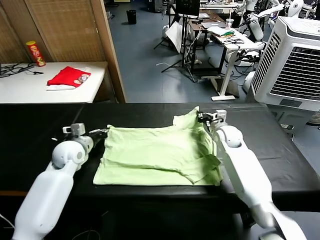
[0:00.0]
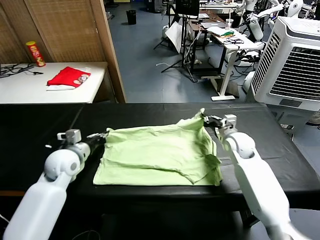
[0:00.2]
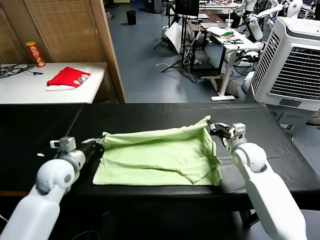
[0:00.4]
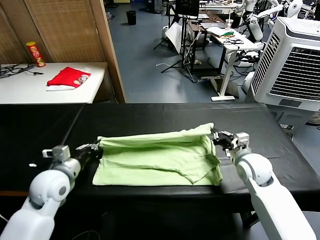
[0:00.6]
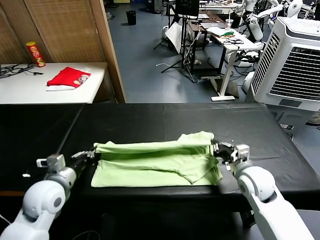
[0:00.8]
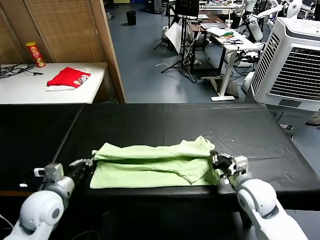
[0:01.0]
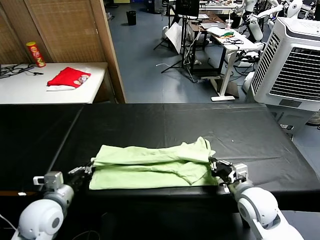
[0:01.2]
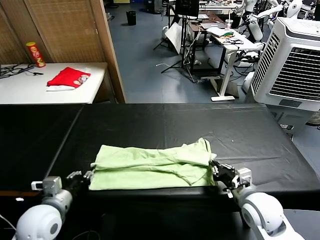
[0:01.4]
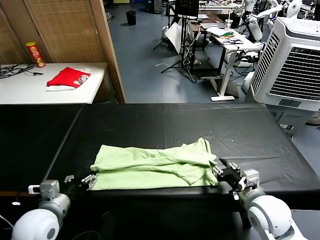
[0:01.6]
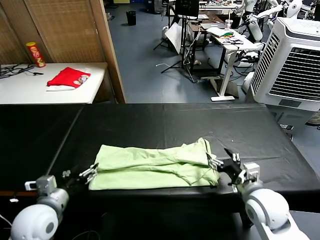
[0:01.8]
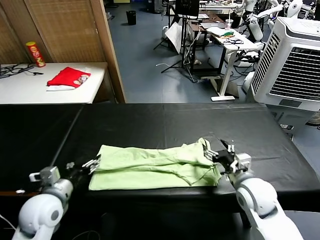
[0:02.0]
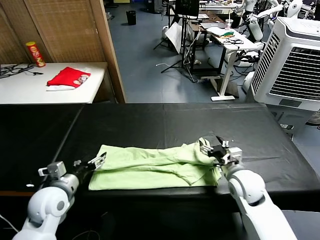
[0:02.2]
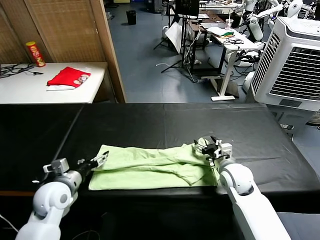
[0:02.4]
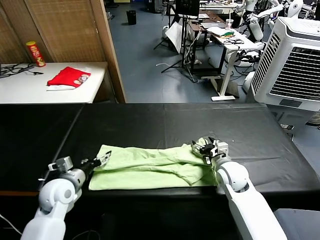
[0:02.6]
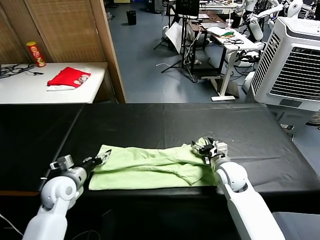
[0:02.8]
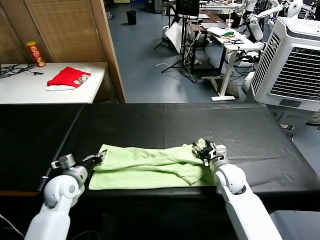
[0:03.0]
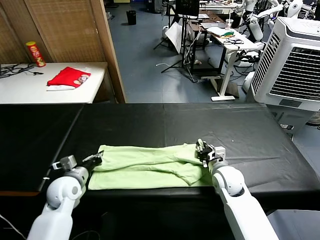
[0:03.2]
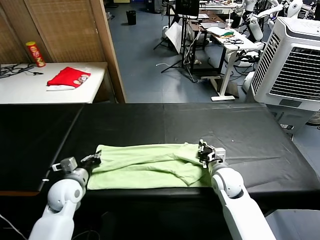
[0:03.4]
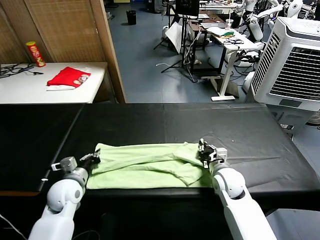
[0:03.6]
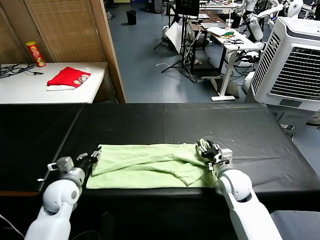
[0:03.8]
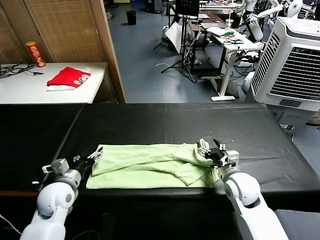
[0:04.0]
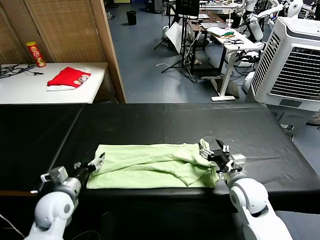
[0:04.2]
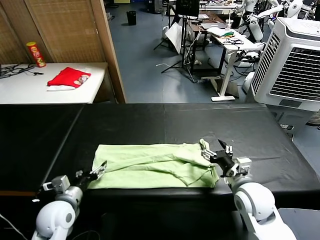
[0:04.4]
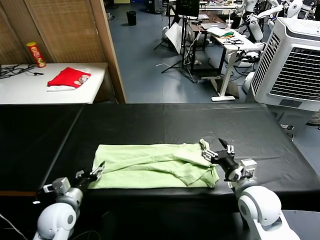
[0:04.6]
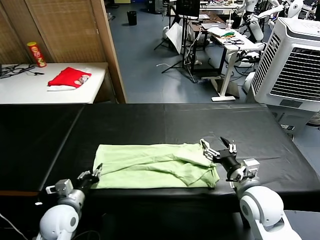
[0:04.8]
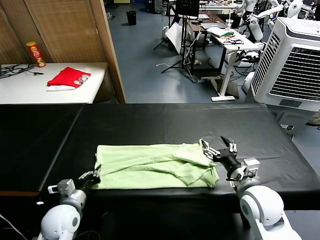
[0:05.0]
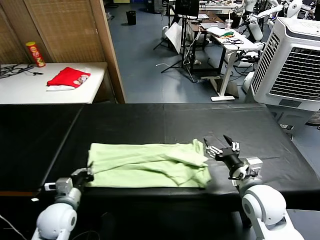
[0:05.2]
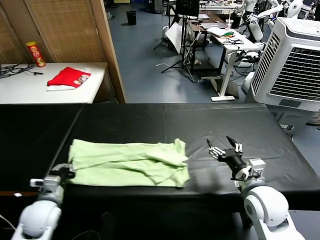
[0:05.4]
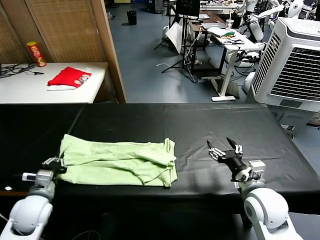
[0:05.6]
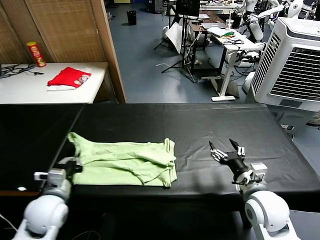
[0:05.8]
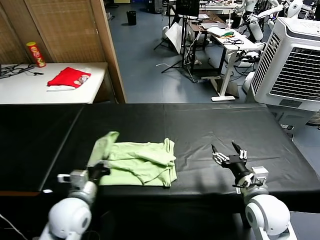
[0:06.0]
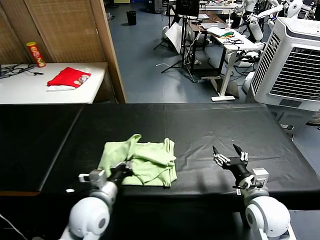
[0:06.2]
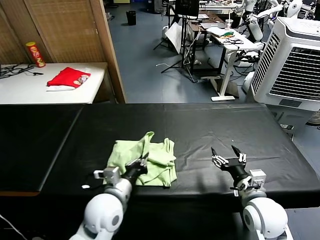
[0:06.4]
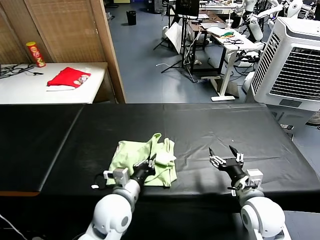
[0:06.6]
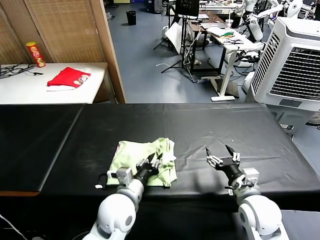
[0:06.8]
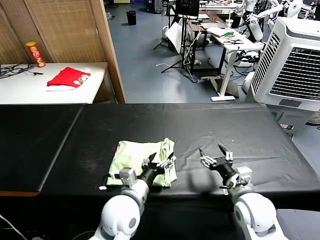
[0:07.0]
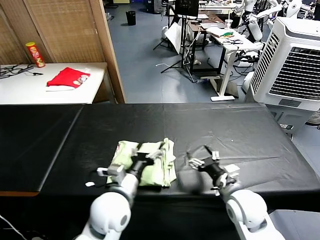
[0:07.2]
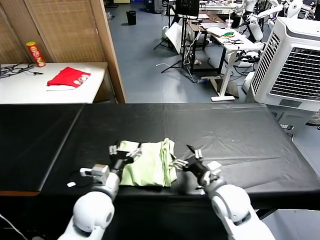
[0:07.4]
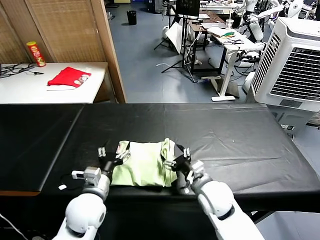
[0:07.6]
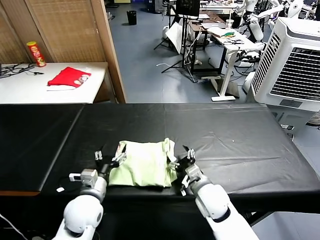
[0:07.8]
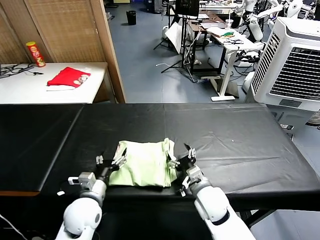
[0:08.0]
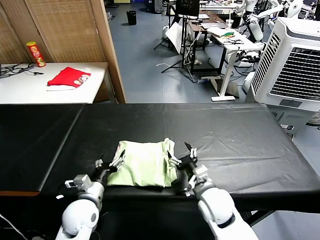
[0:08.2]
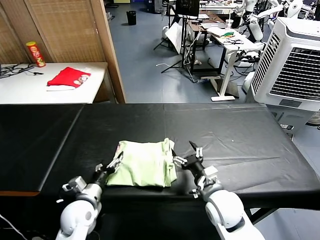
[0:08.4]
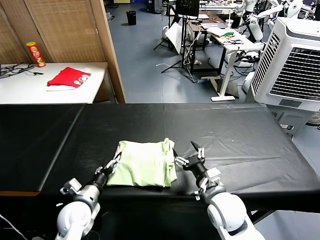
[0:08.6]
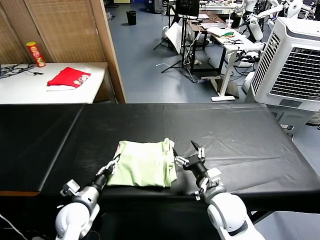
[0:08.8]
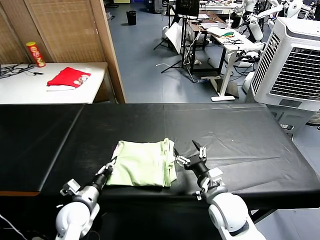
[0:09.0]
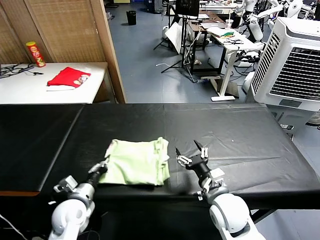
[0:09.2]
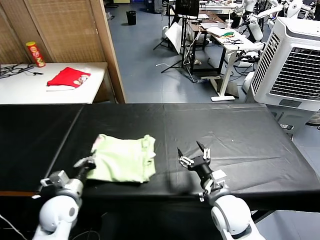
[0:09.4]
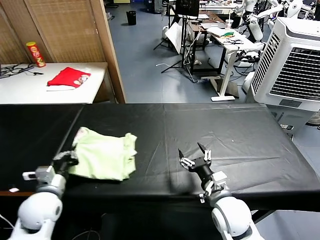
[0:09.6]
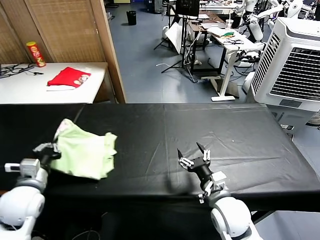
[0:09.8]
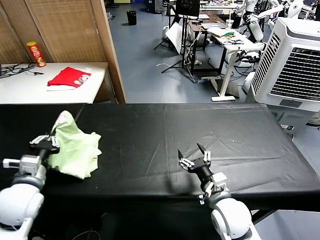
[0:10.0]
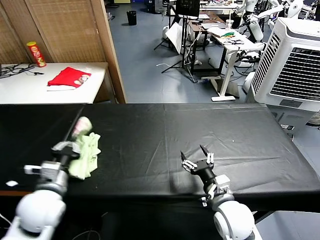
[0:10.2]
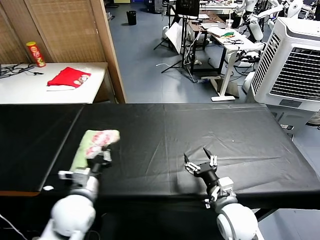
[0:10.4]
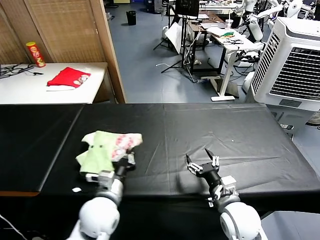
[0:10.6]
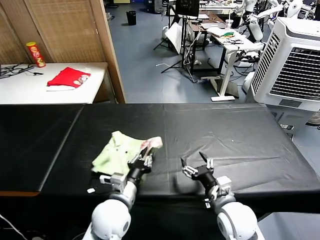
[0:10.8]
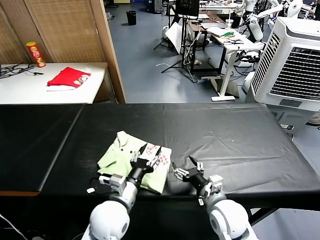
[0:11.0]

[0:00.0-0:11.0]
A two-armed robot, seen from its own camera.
Task of the whole recording: fold and organize the clothes.
Step, 0:00.0 to 0:01.6: use both grippers to drag the upper edge of the fabric backward and fold it over the lower edge.
Step, 0:01.8 to 0:04.8: use the left gripper to clamp the left edge of the fabric.
Step, 0:05.2 to 0:06.8: use the left gripper to drag the left edge of the fabric to the left and folds it over the right edge.
Step, 0:07.2 to 0:10.8: Flip the folded clothes over with left gripper.
0:00.0 to 0:01.6: Both grippers travel together backward, about 20 cm. The left gripper opens its fingers. The right gripper opens up.
0:01.6 to 0:03.2: The right gripper travels forward, downward and to the left by approximately 15 cm, and closes its fingers, while the left gripper shifts approximately 15 cm forward and downward, and closes its fingers.
0:03.2 to 0:04.8: The left gripper is displaced backward by about 10 cm, and opens and closes again, while the right gripper travels backward and upward by roughly 15 cm, and opens its fingers.
0:04.8 to 0:06.2: The left gripper travels to the right and upward by about 15 cm.
0:06.2 to 0:07.8: The left gripper moves some 10 cm to the right and comes back, and opens its fingers. The right gripper goes about 15 cm to the left, forward and downward.
0:07.8 to 0:09.4: The right gripper shifts by about 5 cm. Meanwhile the left gripper shifts some 10 cm to the left, and closes.
0:09.4 to 0:11.0: The left gripper moves to the right, about 15 cm, and opens up.

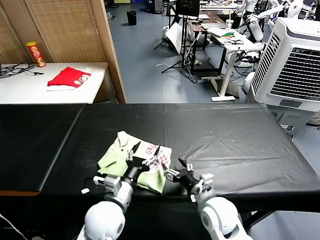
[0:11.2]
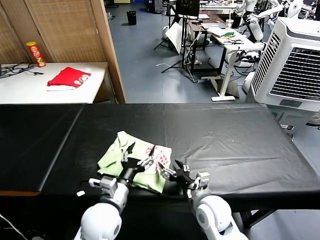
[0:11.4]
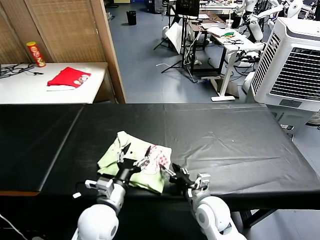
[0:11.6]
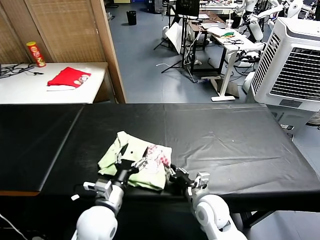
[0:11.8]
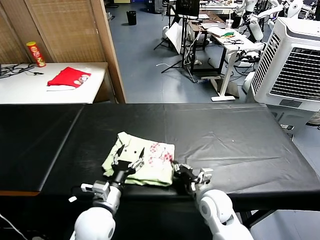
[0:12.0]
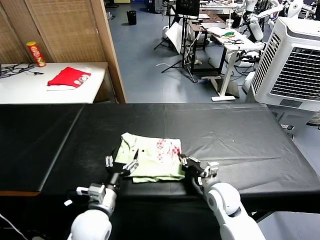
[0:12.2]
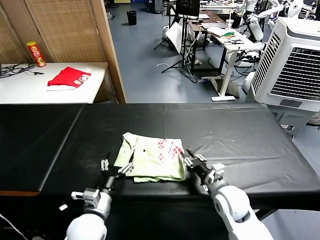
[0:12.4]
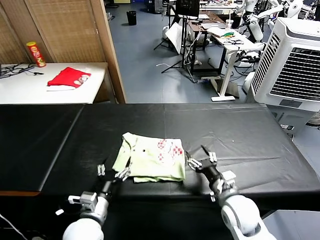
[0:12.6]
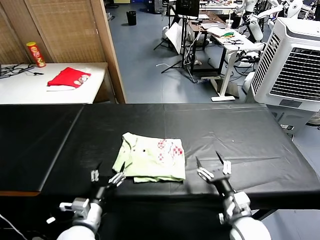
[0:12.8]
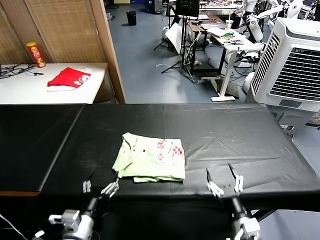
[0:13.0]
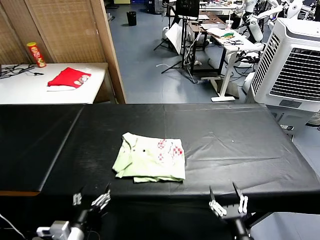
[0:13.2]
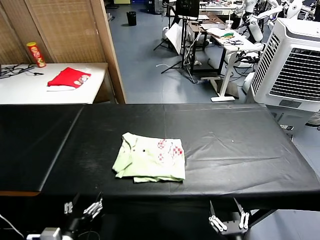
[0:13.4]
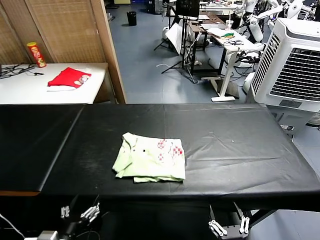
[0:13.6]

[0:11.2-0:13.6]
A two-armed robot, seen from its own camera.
Task of the whole recording: fold and organize the clothes.
Step, 0:11.2 to 0:12.4: Drag the clothes to the center of the table.
0:11.2 to 0:12.4: The right gripper ends up approximately 5 cm from where it was, and closes; the left gripper travels to the left by roughly 5 cm.
0:12.4 to 0:13.6: The left gripper goes about 15 cm backward and to the left; the right gripper shifts approximately 25 cm backward, and opens its fingers.

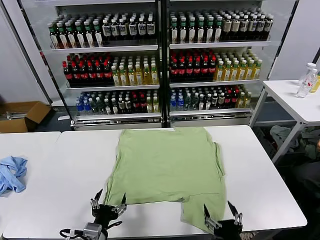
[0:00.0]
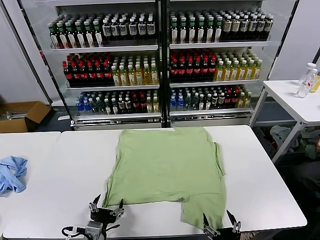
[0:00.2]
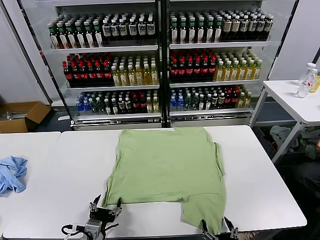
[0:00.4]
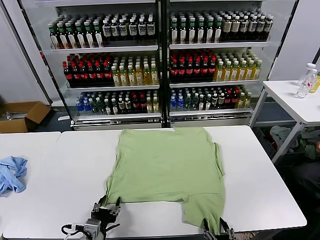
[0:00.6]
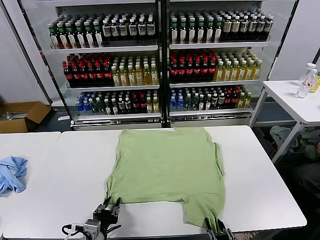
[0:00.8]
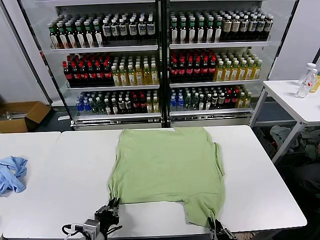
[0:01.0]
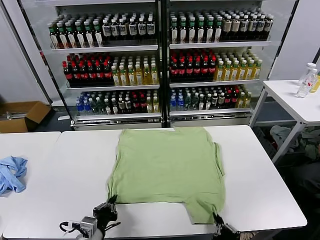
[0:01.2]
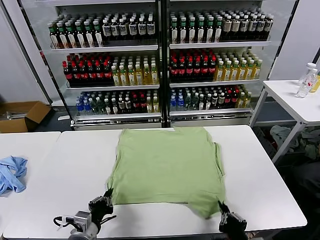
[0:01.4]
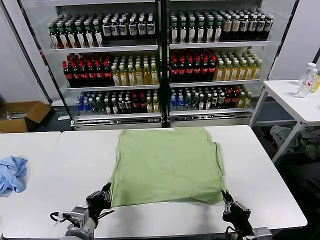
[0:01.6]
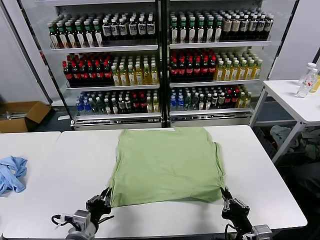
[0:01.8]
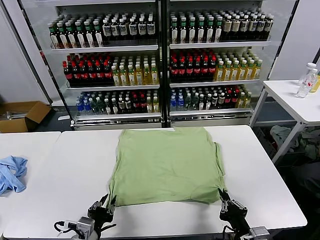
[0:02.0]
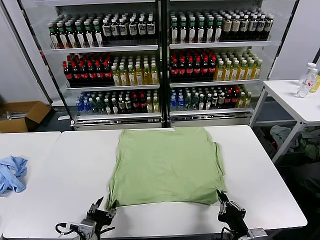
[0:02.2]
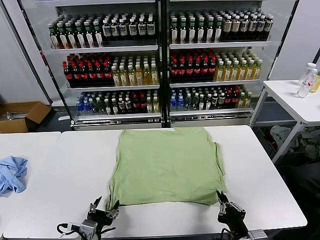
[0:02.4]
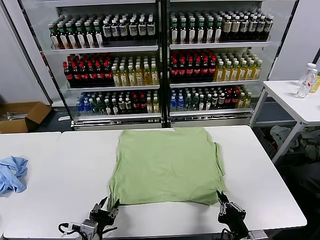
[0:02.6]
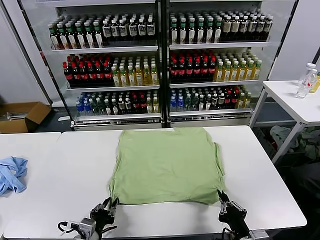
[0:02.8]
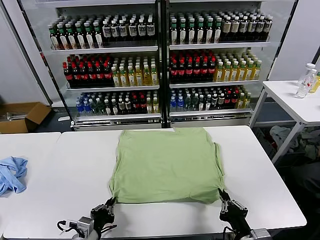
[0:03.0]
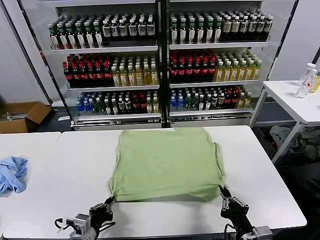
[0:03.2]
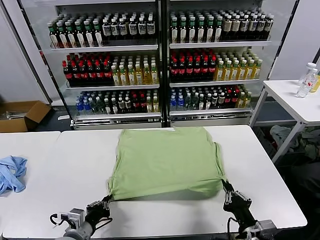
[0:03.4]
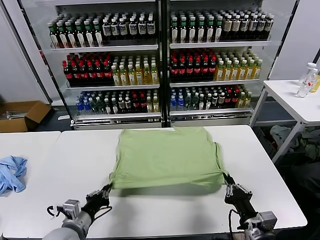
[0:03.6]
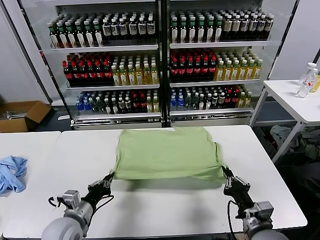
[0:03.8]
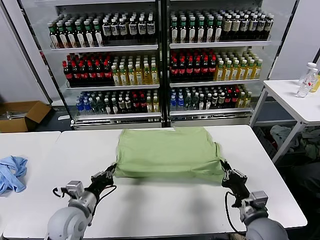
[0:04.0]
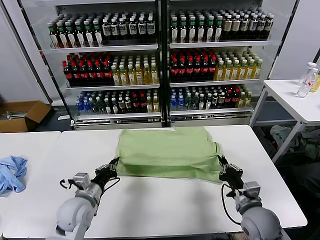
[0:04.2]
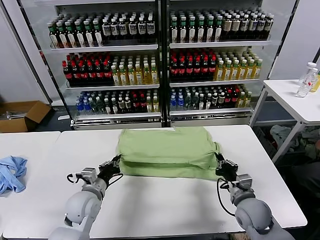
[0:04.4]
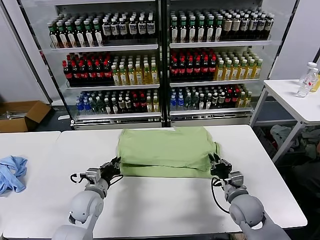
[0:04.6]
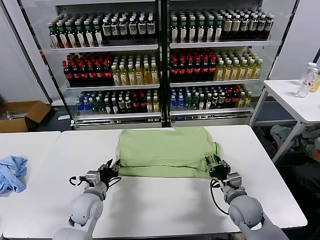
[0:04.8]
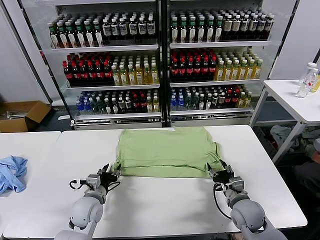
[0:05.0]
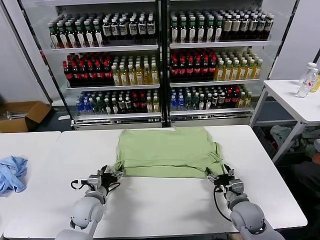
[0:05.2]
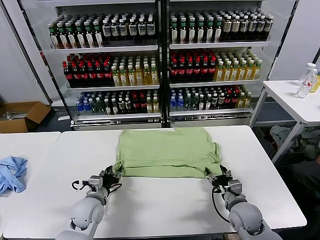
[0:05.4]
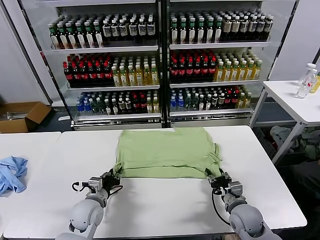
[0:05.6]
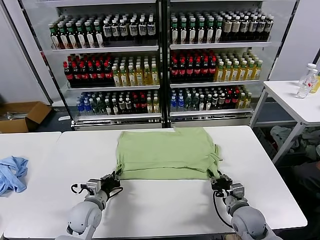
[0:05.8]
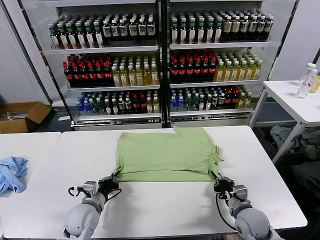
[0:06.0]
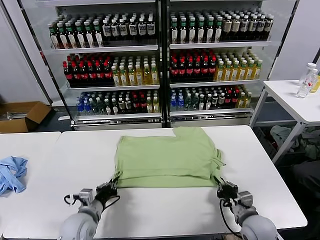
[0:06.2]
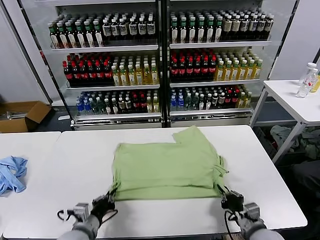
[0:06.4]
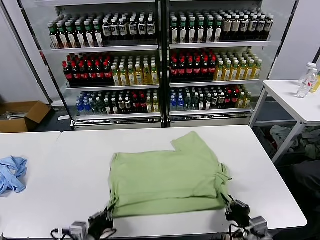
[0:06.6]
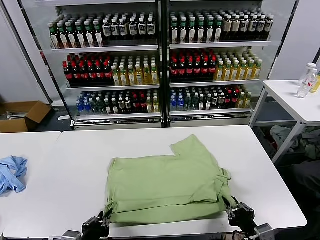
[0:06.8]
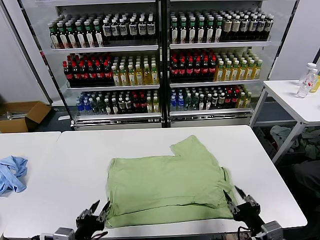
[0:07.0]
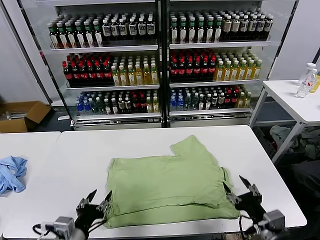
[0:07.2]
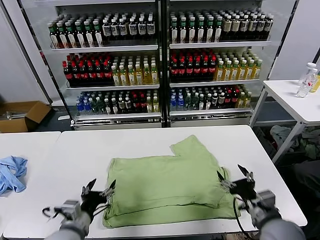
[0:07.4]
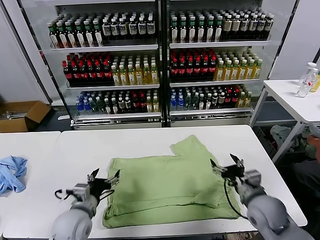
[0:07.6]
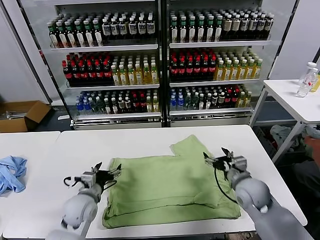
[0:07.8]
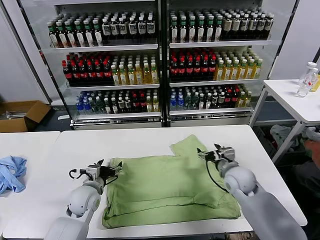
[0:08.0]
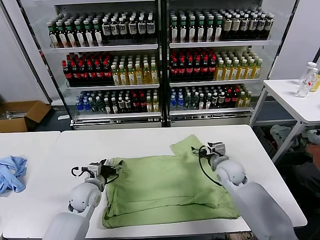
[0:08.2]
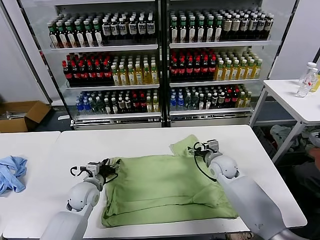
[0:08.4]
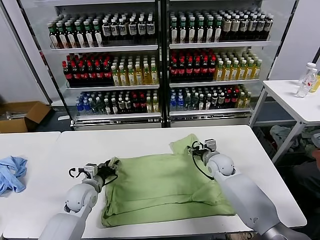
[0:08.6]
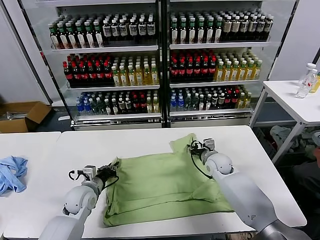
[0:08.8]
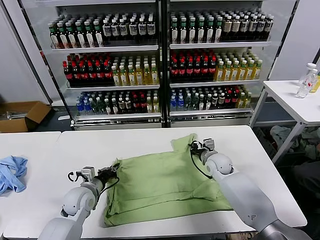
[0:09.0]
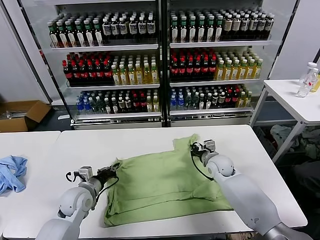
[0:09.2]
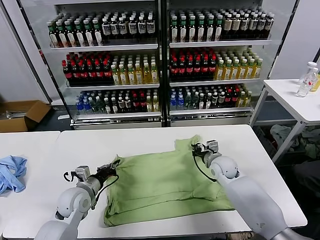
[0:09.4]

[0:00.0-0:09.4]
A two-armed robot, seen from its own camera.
Task of the whole recording: fold and organize the clothes.
Step, 0:00.0 to 0:01.0: use both grippers simultaneously to clamp the lower edge of the clothing fabric.
Step, 0:01.4 to 0:04.8: use both grippers to drag the lower edge of the fabric forward and fold it over the upper edge.
Step, 0:05.0 to 0:07.0: Drag the clothes downward with both gripper.
Step, 0:07.2 to 0:09.2: use both grippers simultaneously to clamp the upper edge of the clothing fabric.
0:01.6 to 0:03.2: The left gripper opens, then closes again.
0:03.2 to 0:04.8: The two grippers go some 15 cm forward. The right gripper opens, while the left gripper opens its fingers.
0:04.8 to 0:06.2: Both grippers move backward, about 5 cm. The left gripper closes its fingers. Meanwhile the right gripper closes its fingers.
0:06.2 to 0:07.8: The left gripper travels backward and back again, approximately 15 cm each way, and opens its fingers. The right gripper shifts roughly 15 cm forward and upward, and opens.
0:07.8 to 0:09.4: The right gripper heads forward, covering roughly 10 cm, and closes; the left gripper closes.
